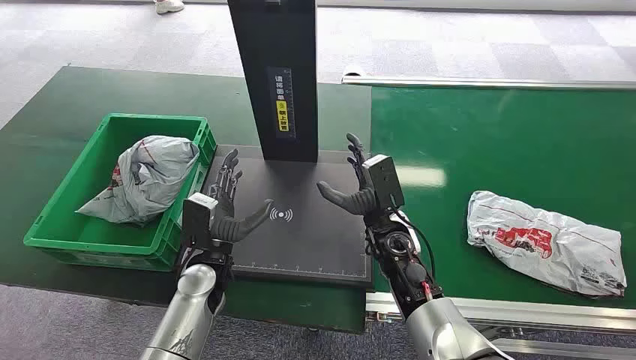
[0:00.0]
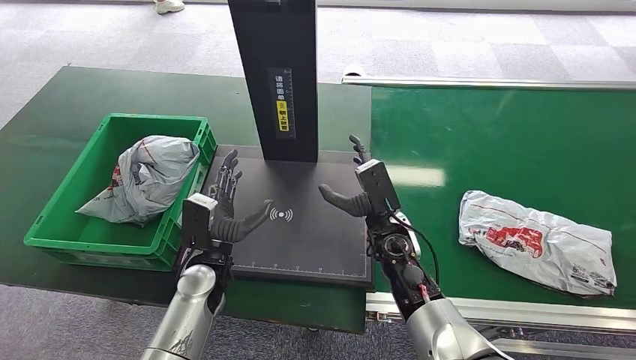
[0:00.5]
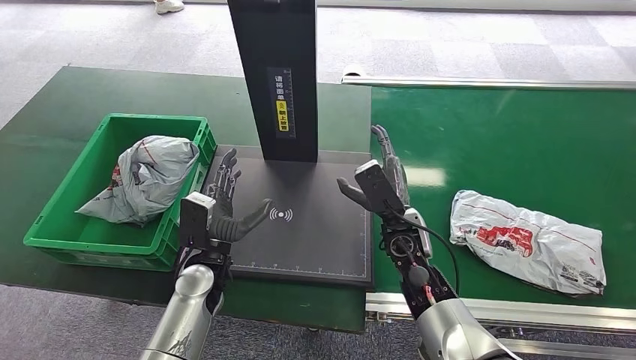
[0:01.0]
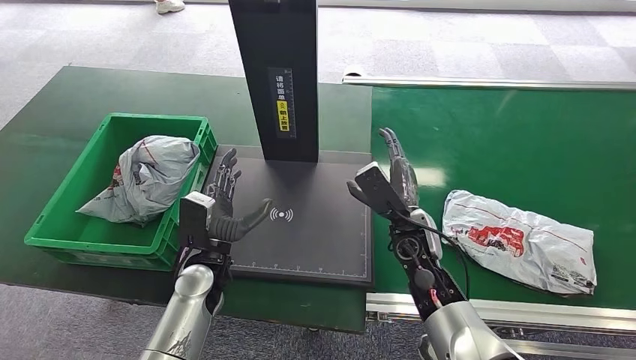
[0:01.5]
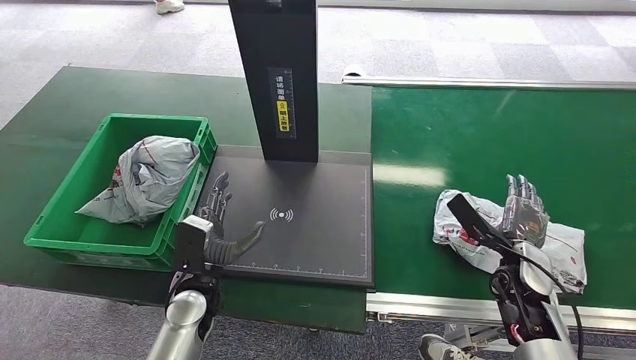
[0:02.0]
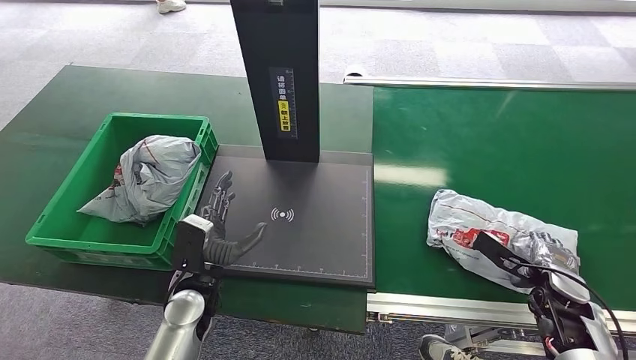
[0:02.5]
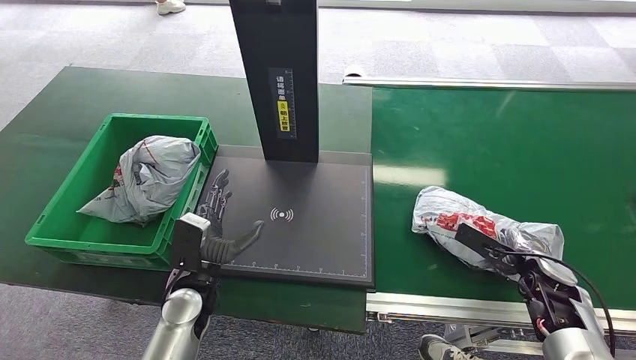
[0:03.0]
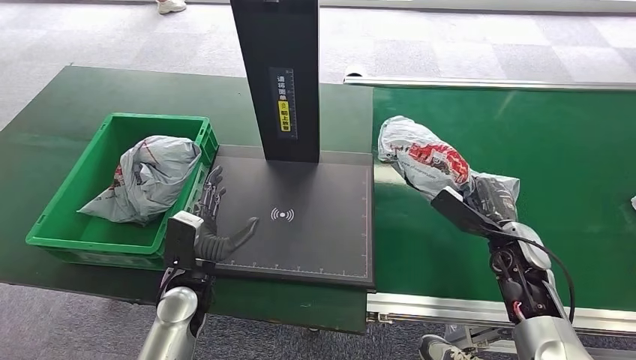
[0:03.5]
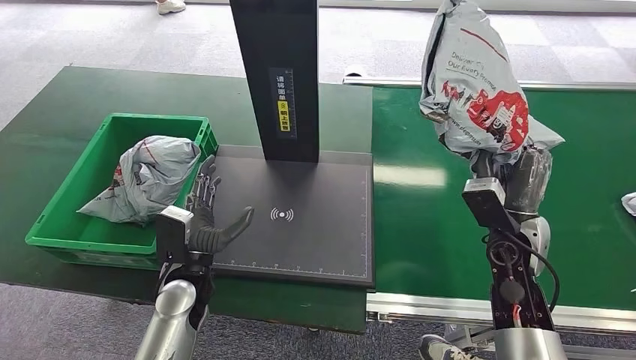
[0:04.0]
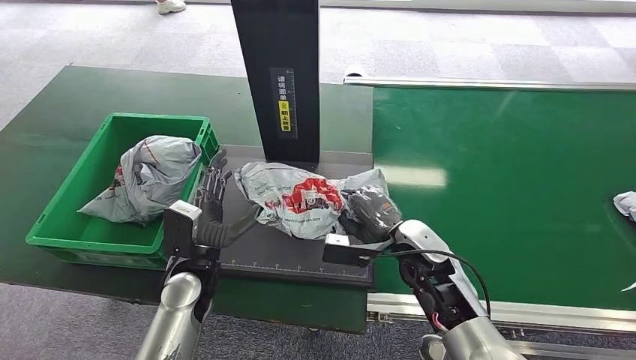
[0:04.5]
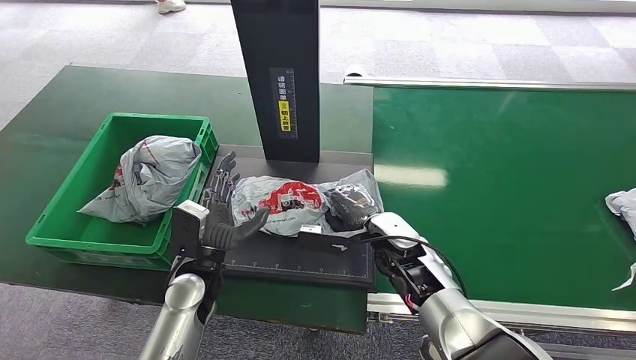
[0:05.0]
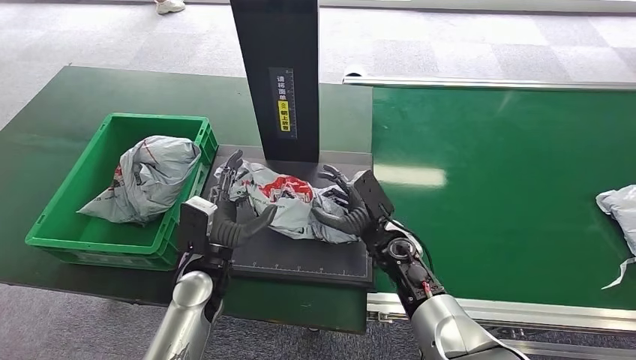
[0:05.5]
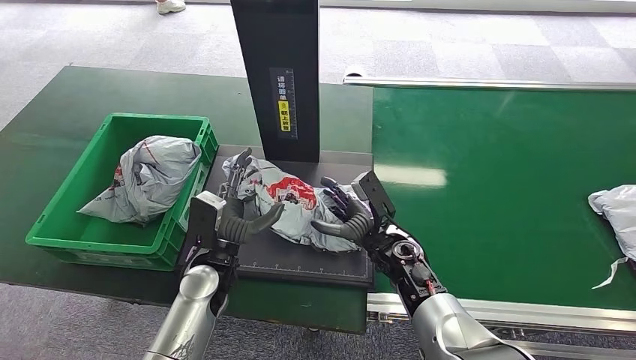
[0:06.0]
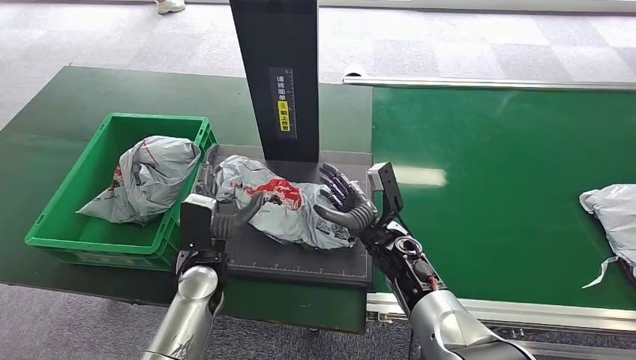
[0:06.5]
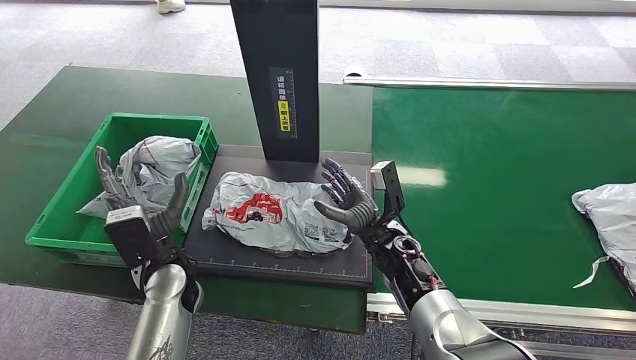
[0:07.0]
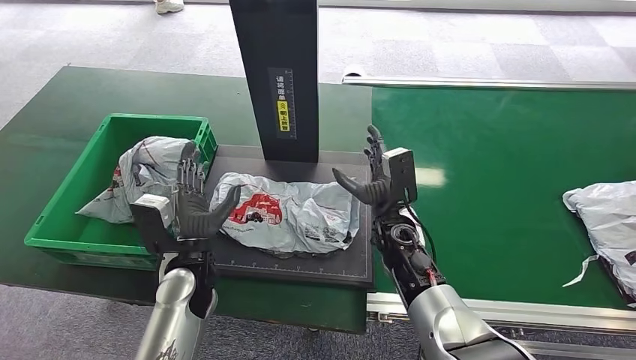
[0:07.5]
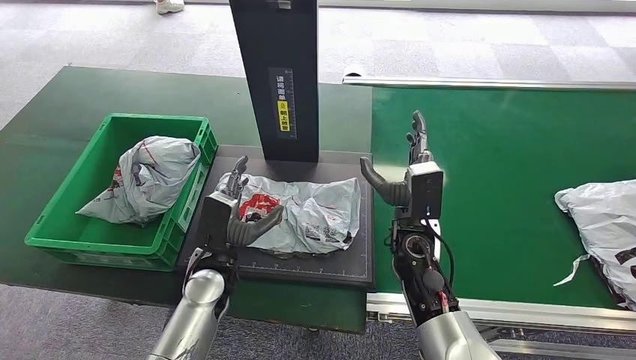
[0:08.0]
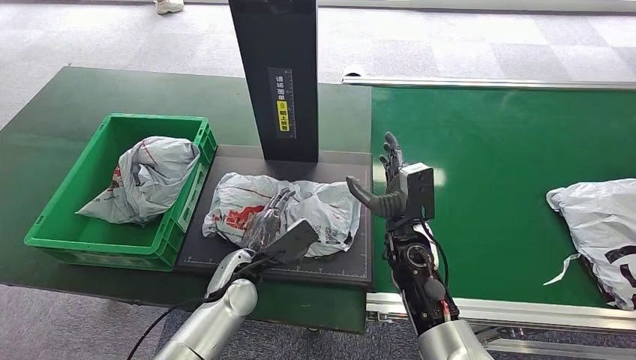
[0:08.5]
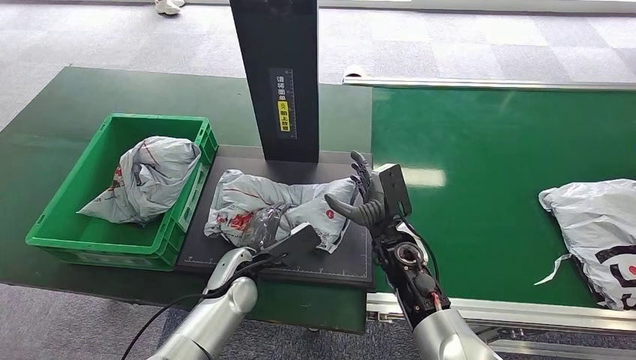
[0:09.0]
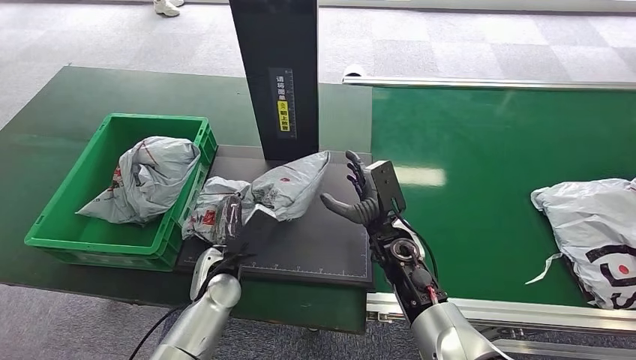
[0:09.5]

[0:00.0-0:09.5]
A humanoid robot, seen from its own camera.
Step, 0:00.0 to 0:03.5: Pick up the package from the conveyor belt.
Step, 0:04.0 to 0:05.0: Place the package onto the inbound machine.
0:02.0 to 0:04.0: The right hand heads upward, covering roughly 10 cm.
0:07.5 to 0:09.5: The left hand moves approximately 5 cm.

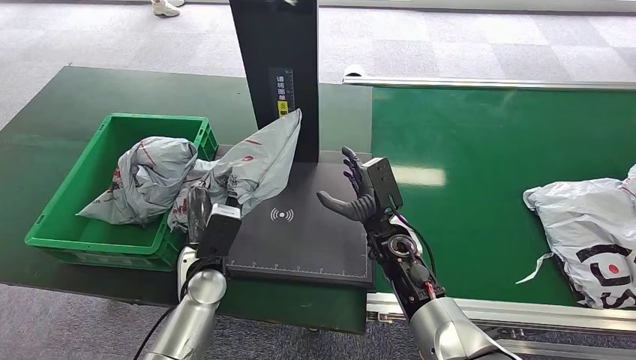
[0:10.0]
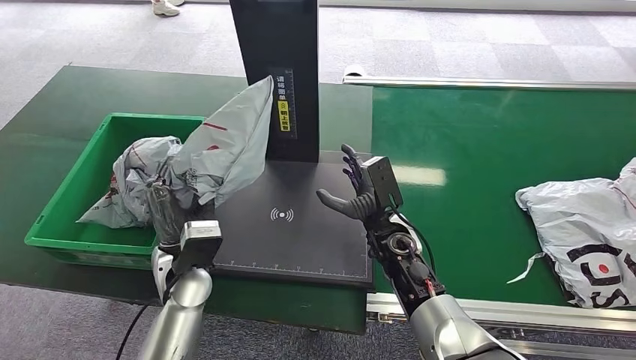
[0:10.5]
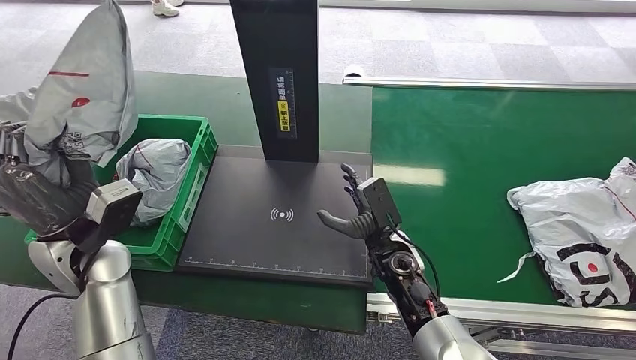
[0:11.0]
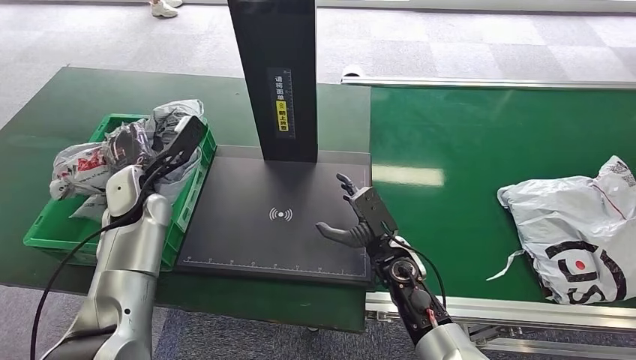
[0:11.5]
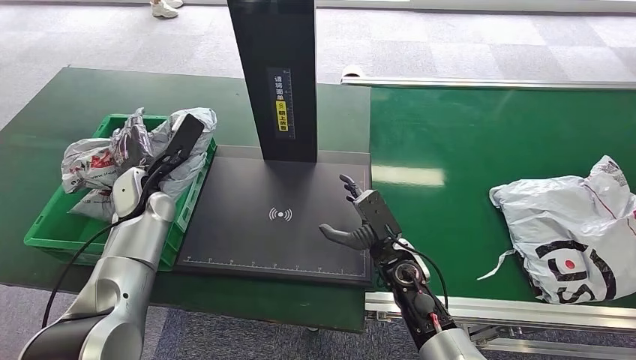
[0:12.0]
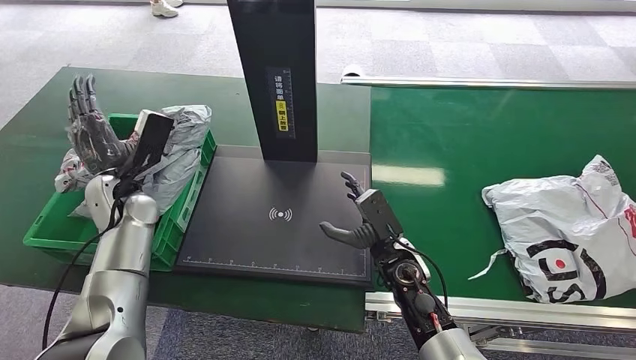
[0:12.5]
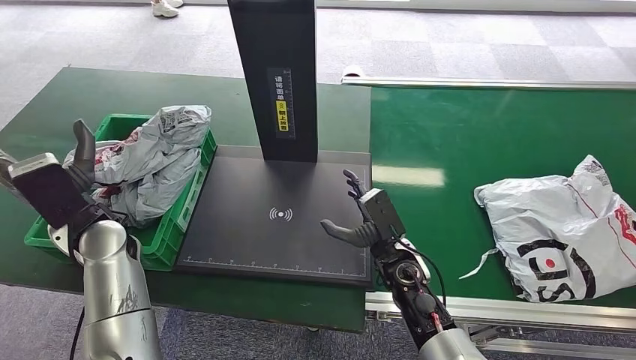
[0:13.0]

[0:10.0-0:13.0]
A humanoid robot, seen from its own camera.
Step, 0:11.0 to 0:13.0: Place the package into the parcel locker.
0:11.5 to 0:13.0: The left hand travels backward by some 5 cm.
